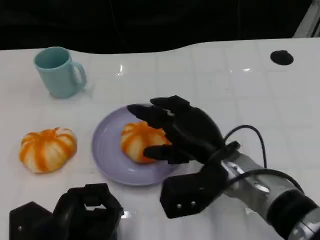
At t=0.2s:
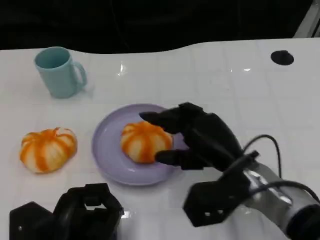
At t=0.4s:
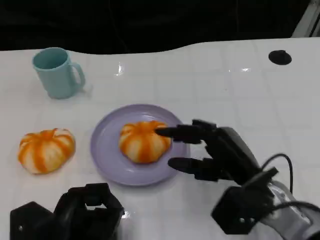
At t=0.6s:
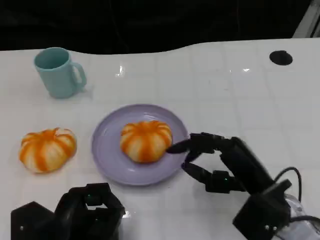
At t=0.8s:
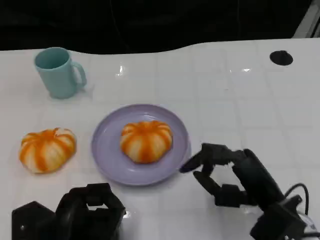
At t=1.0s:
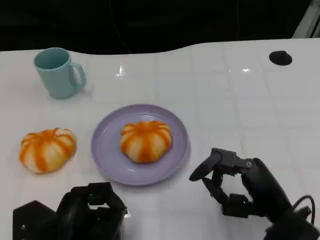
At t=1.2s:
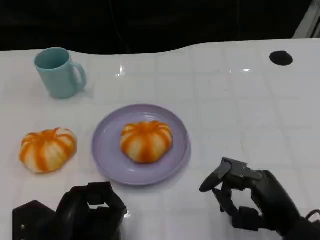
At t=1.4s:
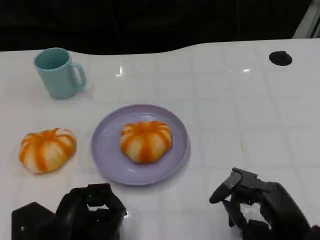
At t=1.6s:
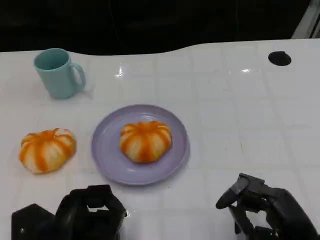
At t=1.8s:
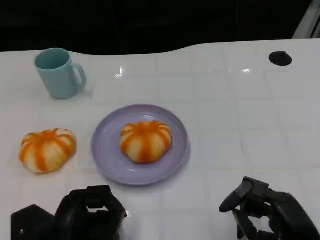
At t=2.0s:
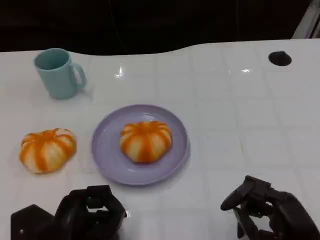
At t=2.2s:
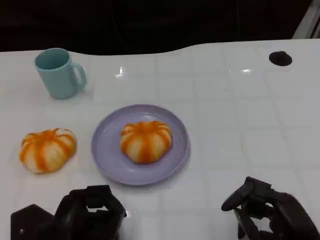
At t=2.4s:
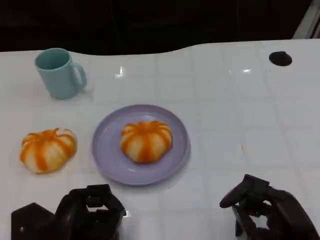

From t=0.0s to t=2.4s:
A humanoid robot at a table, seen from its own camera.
Task of the whole recording: Grasp the bread from the table and place it into the plate.
From t=0.0s to t=1.2s: The right hand goes some 15 cm to the right and backward.
From t=1.2s to t=2.4s: The hands make only small movements.

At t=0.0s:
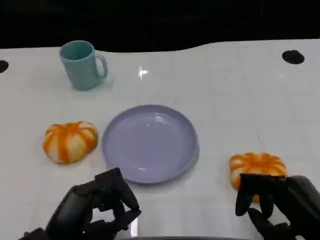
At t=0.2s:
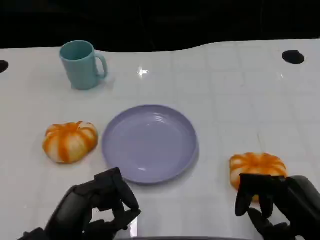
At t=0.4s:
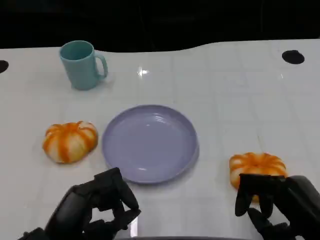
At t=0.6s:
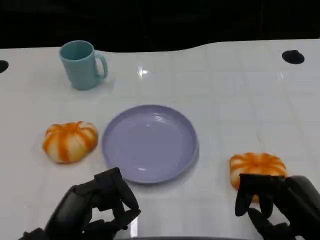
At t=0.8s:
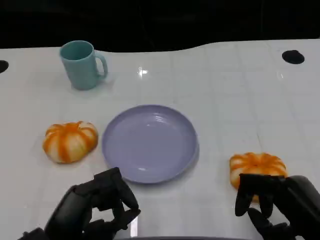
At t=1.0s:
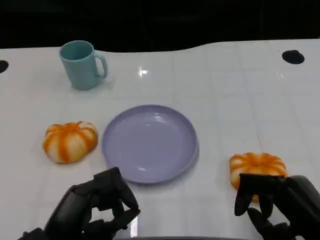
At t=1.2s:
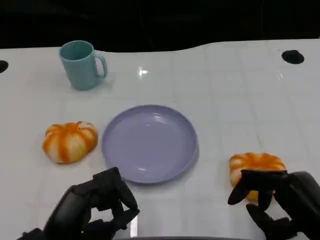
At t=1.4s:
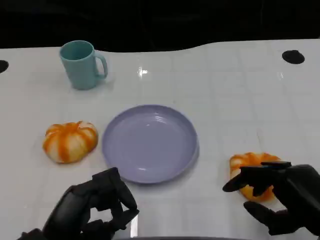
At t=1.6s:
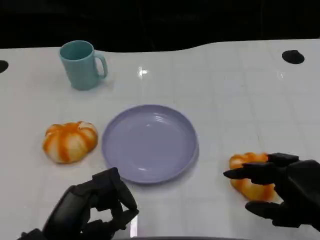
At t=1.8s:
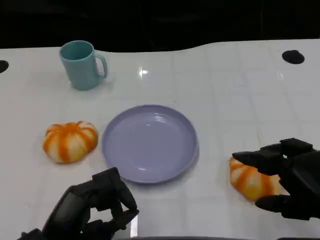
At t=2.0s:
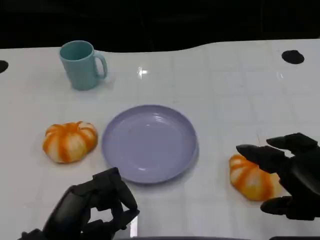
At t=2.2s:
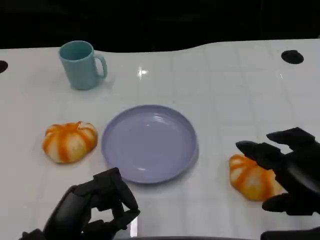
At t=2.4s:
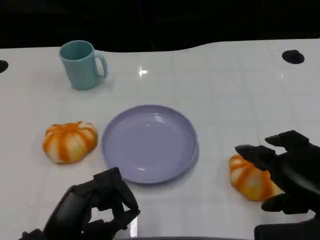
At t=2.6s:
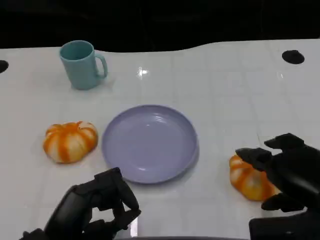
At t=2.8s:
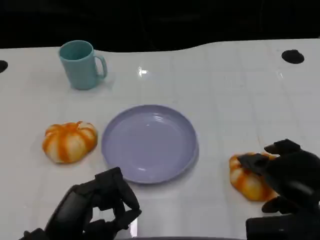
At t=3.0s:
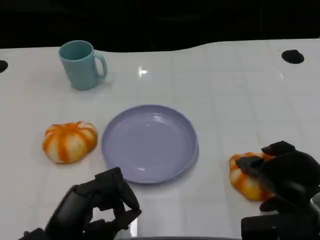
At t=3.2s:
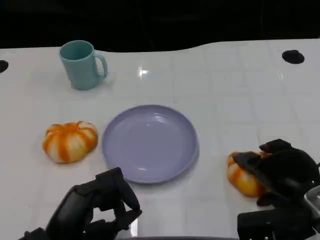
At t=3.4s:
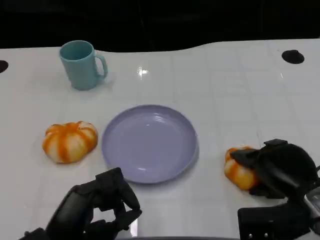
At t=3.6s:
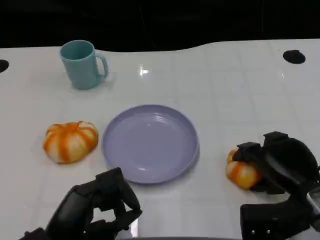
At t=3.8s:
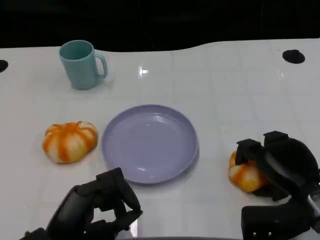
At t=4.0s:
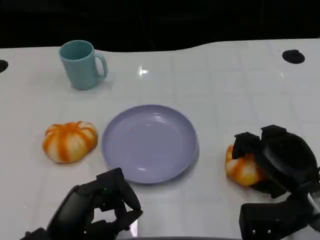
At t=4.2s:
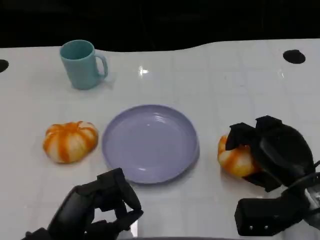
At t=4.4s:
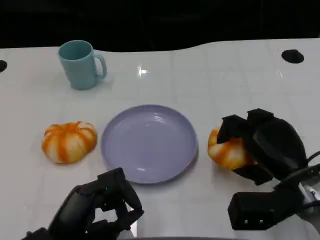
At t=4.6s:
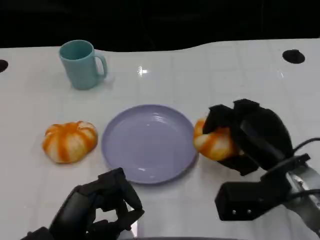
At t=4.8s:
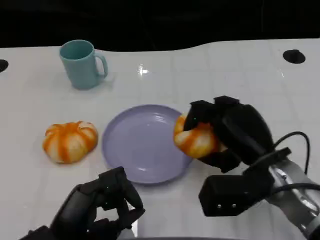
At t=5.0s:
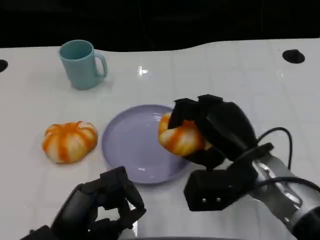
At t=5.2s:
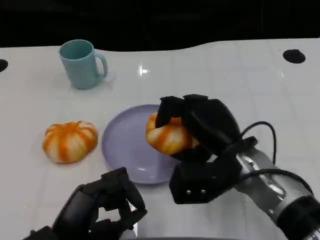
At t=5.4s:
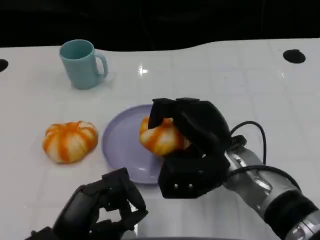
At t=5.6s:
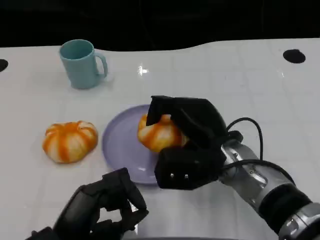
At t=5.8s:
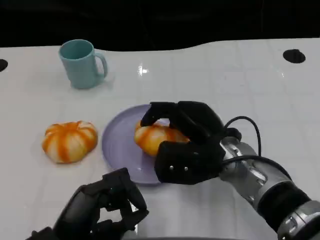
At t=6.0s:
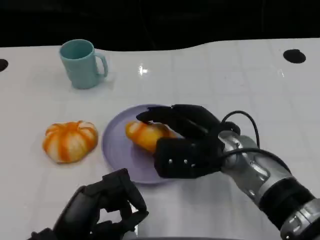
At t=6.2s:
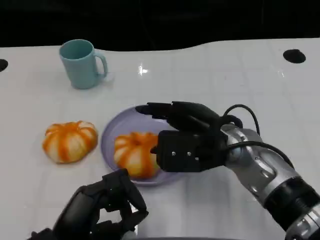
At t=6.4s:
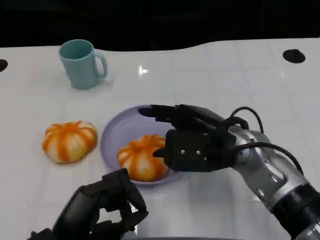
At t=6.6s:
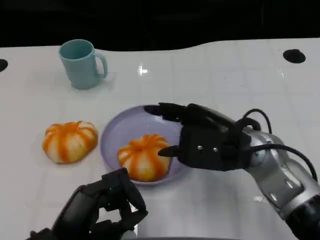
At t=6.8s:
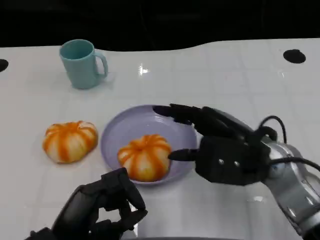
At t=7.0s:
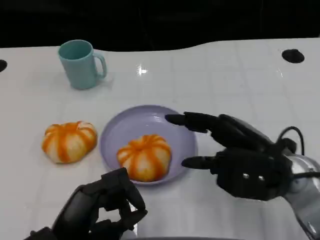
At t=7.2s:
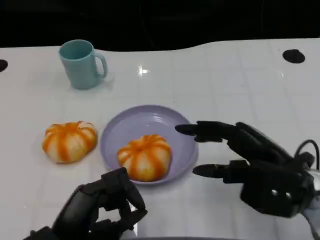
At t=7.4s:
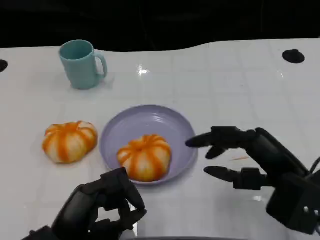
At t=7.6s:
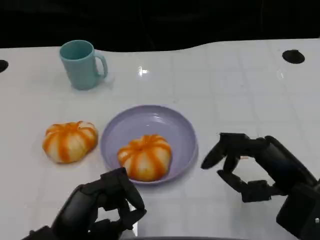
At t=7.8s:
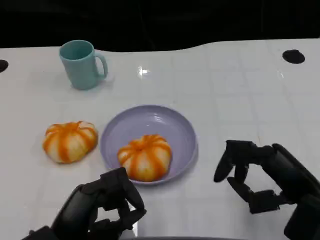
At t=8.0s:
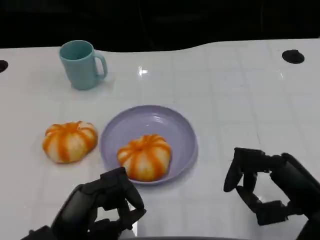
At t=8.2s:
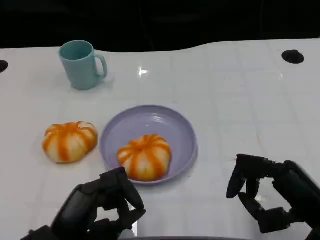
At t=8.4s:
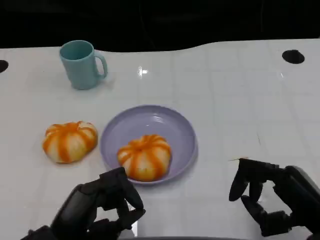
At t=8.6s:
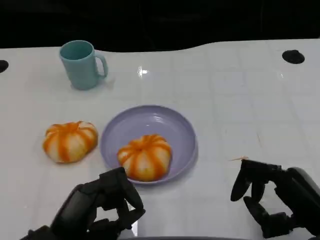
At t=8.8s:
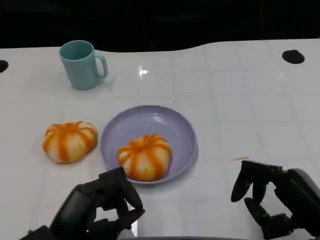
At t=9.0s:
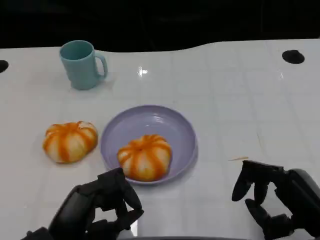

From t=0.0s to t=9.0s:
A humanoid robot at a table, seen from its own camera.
Task of the whole recording: Grasp the bread from the table and place it into the plate.
From t=0.0s to t=1.6s: The hands stay close to where they were, moving slightly.
From t=1.6s to t=3.0s: The right hand moves forward, some 5 cm.
From t=4.4s to t=6.0s: The right hand goes some 10 cm to the left.
From t=6.0s to t=7.6s: The right hand is displaced to the right and backward by approximately 15 cm.
From t=7.6s to t=9.0s: The right hand shifts by approximately 5 cm.
